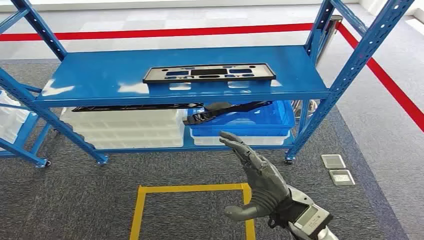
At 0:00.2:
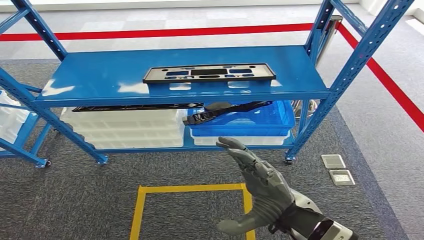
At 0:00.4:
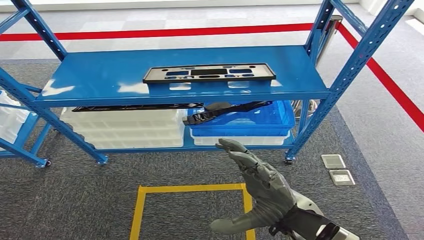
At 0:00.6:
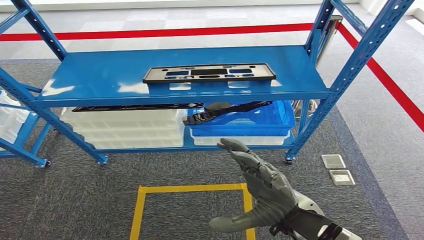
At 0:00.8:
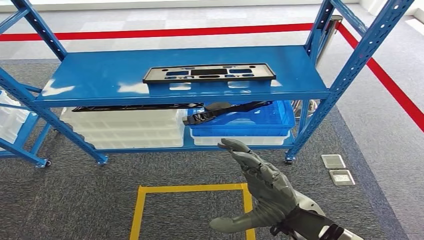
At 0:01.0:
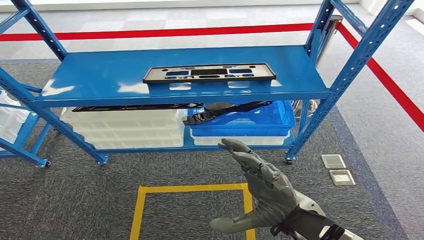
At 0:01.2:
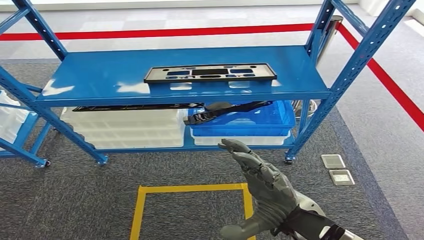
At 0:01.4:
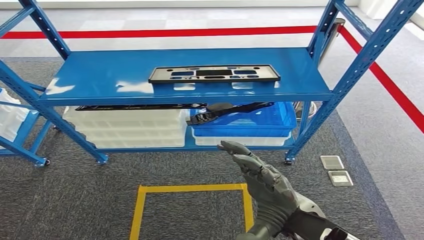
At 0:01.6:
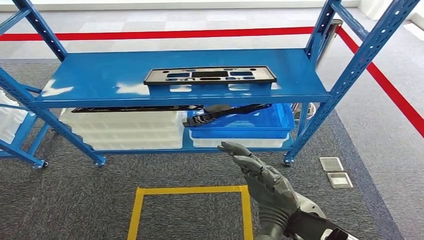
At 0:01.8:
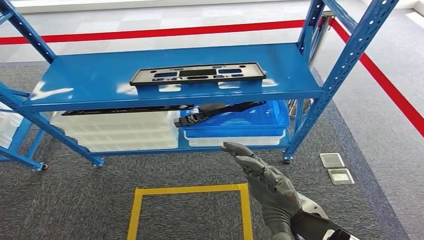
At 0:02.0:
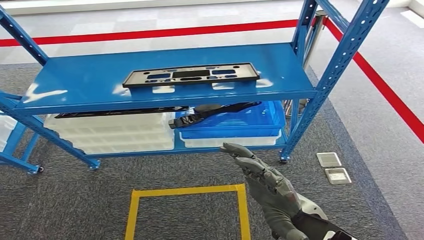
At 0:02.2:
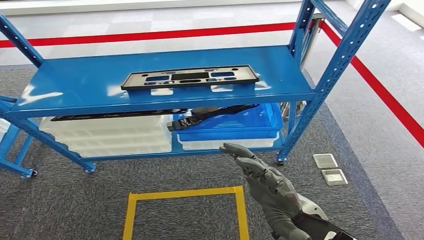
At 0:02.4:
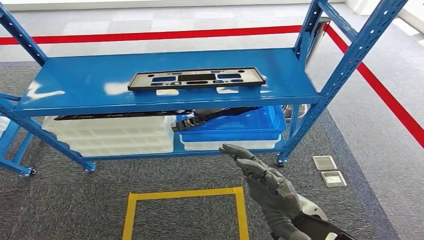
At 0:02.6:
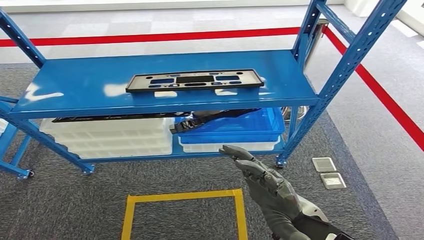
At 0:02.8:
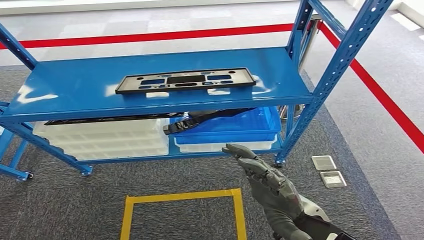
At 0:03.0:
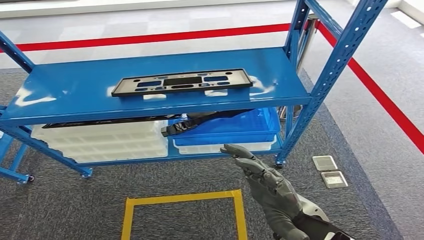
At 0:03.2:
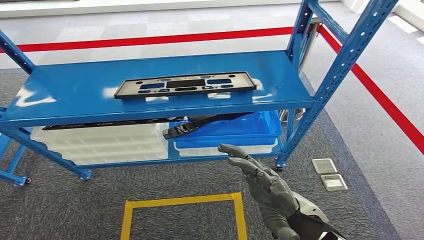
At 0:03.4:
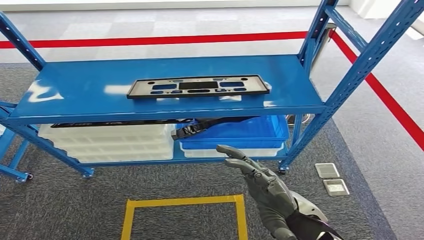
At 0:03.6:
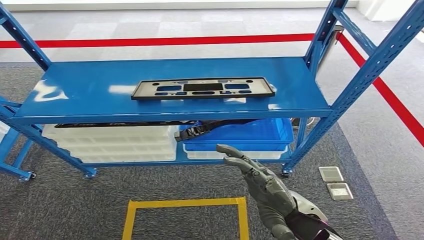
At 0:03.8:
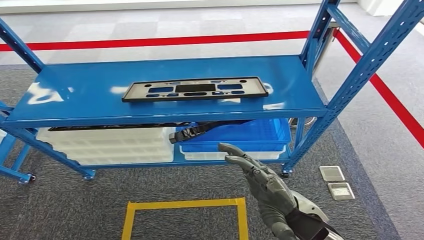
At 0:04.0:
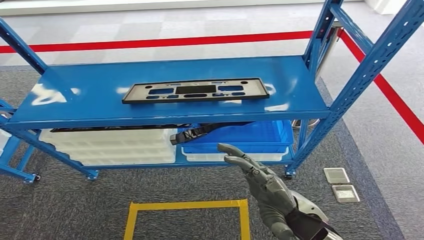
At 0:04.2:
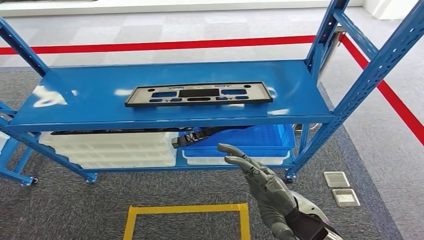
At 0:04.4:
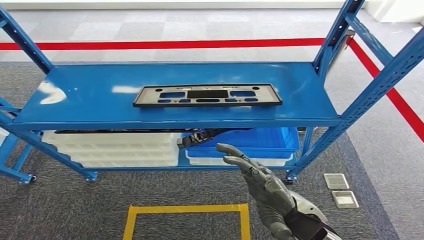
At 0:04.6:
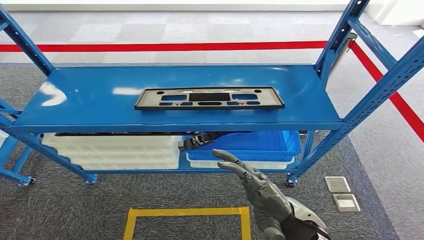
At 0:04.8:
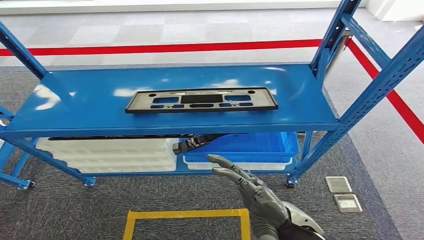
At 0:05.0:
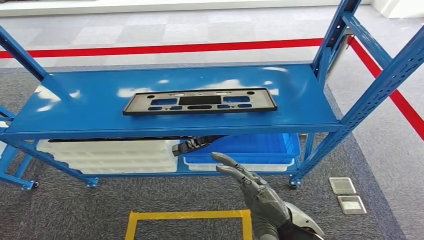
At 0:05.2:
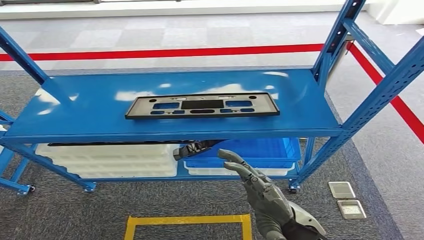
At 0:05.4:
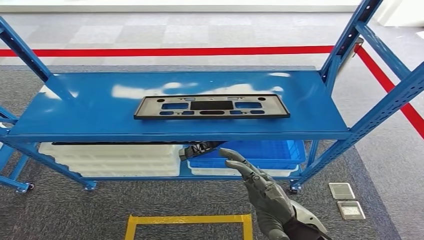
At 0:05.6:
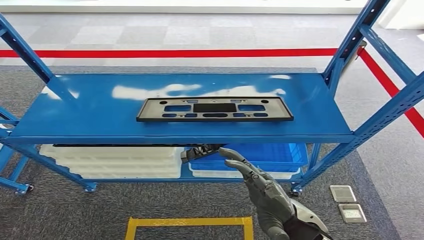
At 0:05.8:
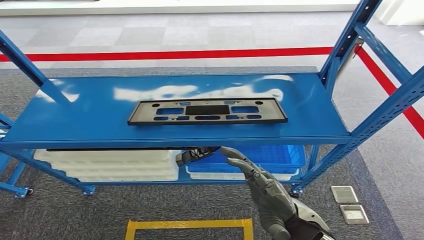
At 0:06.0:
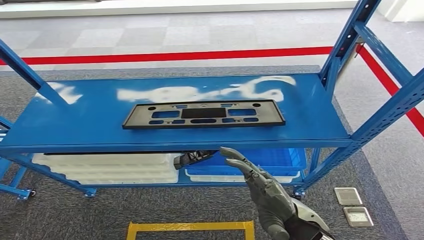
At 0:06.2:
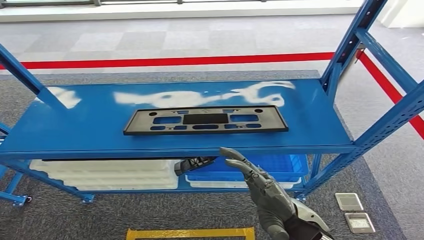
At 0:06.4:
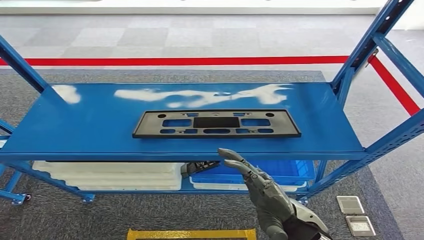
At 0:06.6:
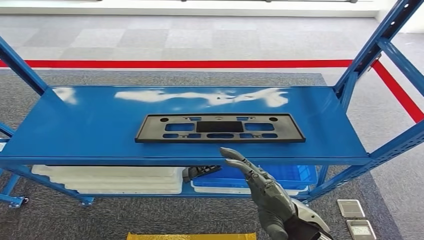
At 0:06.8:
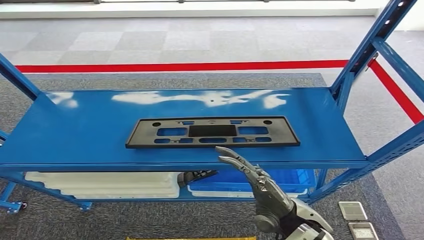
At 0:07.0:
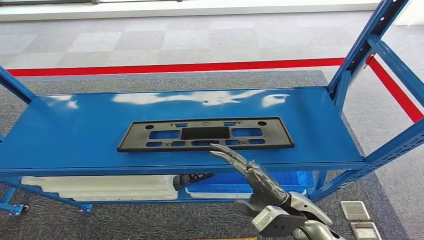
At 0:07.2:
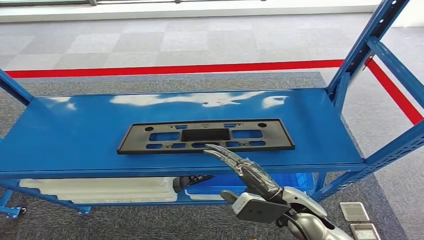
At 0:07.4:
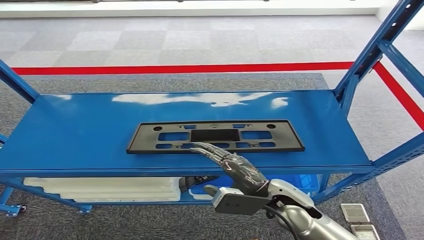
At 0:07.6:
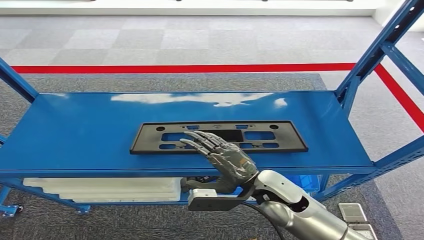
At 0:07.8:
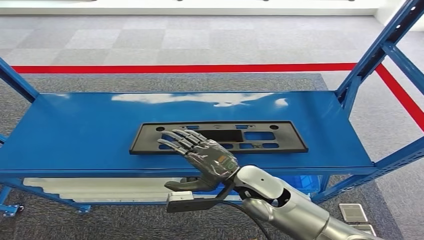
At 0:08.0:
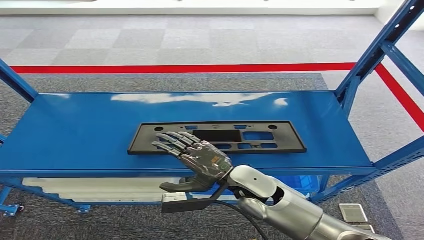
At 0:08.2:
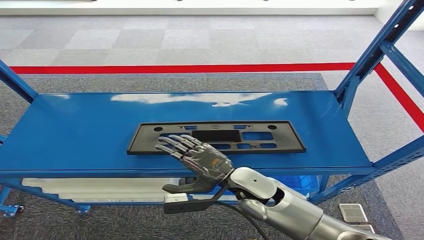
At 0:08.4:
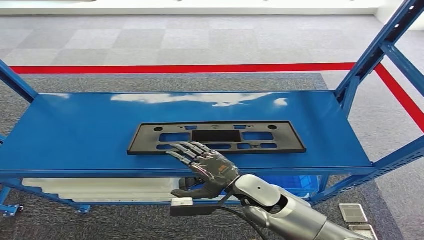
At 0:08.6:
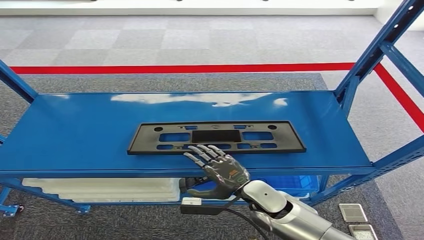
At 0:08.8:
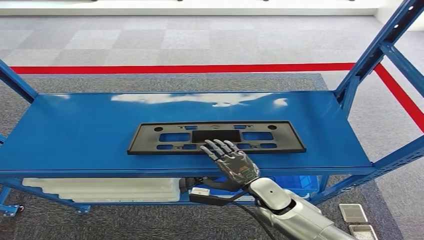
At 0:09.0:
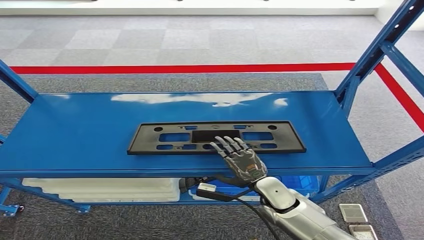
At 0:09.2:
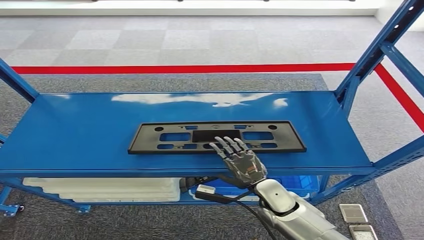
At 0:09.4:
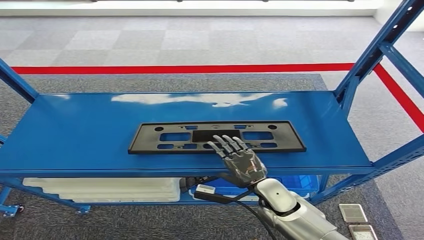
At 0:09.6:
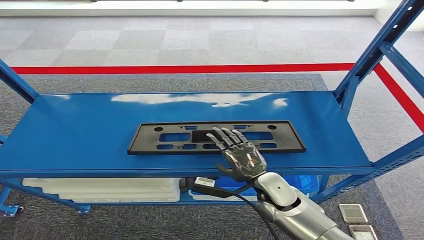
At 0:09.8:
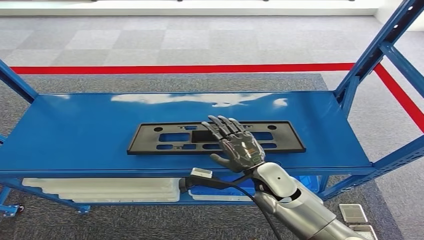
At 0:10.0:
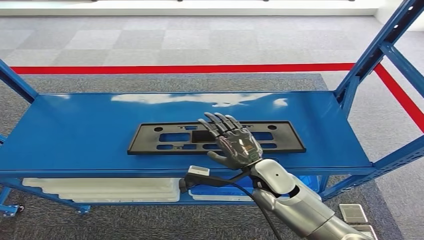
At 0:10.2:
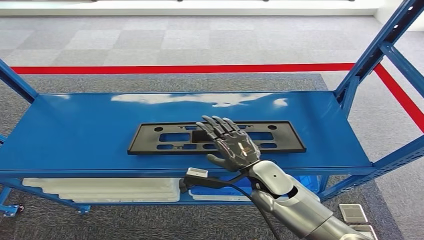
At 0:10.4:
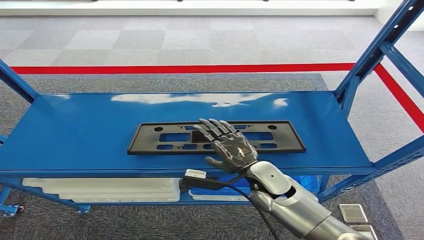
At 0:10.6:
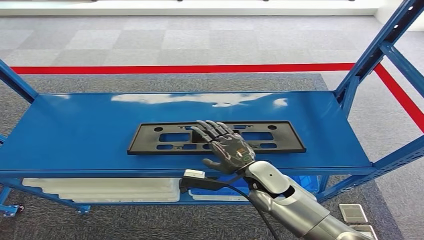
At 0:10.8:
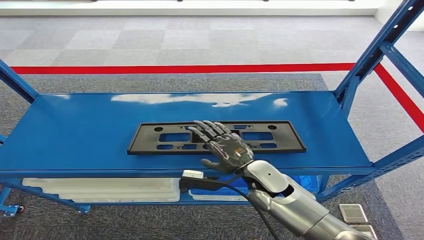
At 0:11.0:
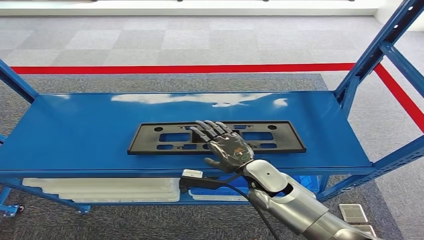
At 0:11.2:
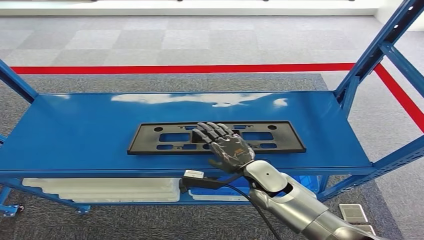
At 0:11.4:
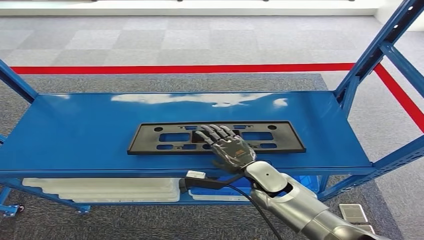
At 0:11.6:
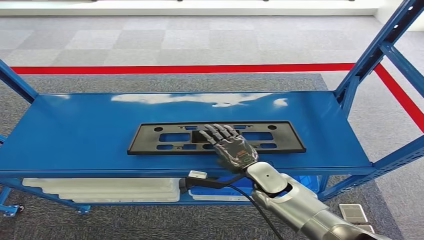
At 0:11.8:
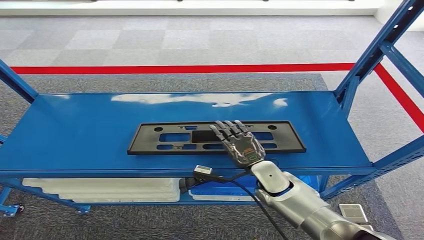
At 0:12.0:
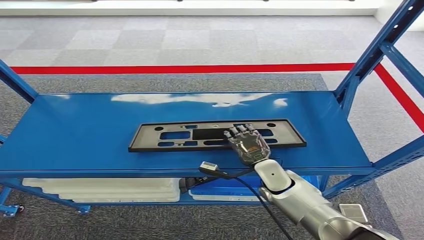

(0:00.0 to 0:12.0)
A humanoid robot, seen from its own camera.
0:07.6 - 0:09.0: The right hand shifts approximately 10 cm downward.
0:09.0 - 0:10.4: The right hand is displaced upward by roughly 5 cm.
0:10.4 - 0:12.0: The right hand ends up some 5 cm from where it was.

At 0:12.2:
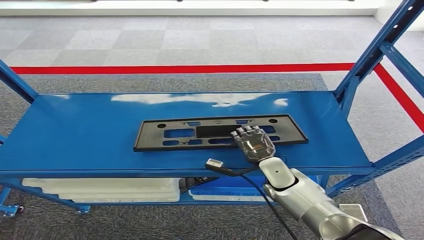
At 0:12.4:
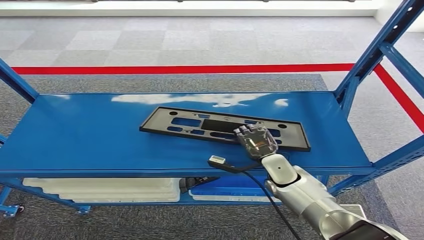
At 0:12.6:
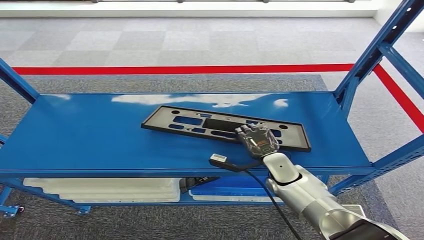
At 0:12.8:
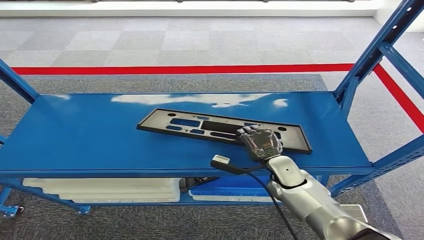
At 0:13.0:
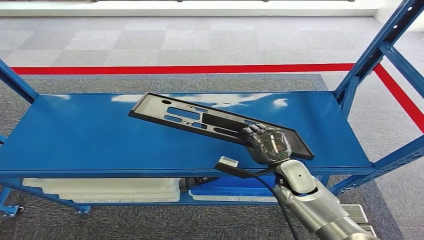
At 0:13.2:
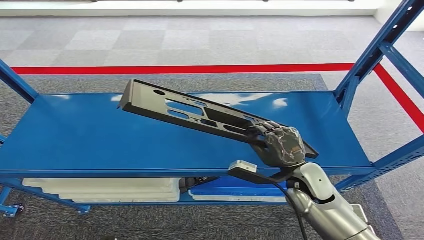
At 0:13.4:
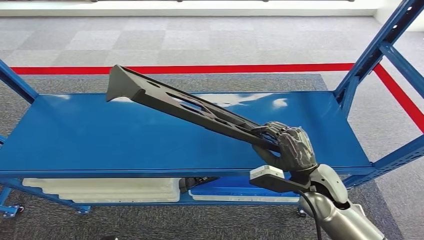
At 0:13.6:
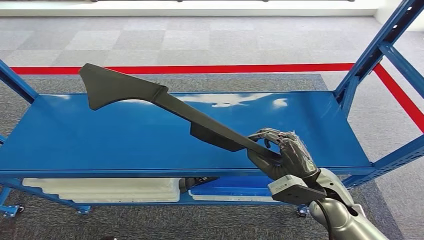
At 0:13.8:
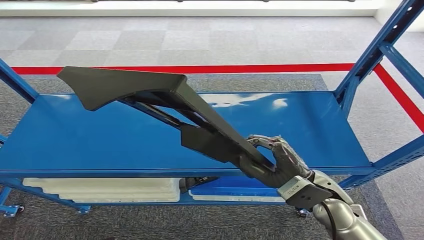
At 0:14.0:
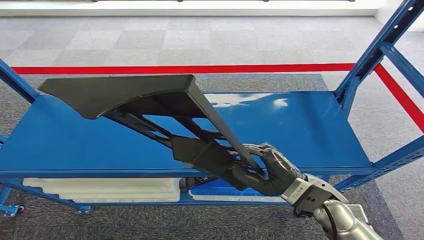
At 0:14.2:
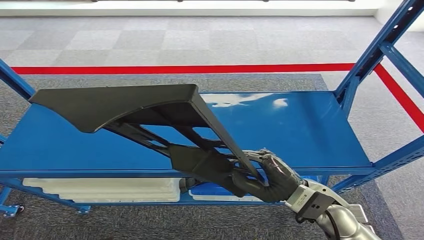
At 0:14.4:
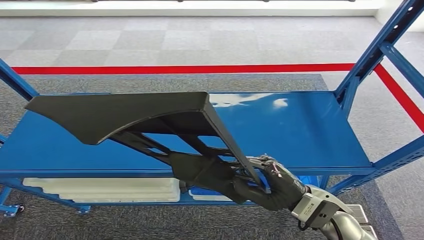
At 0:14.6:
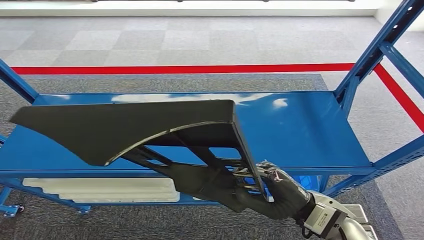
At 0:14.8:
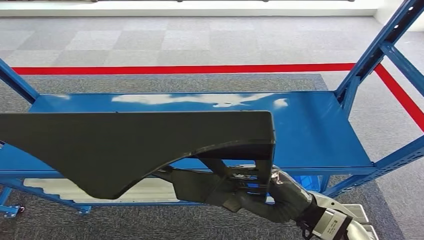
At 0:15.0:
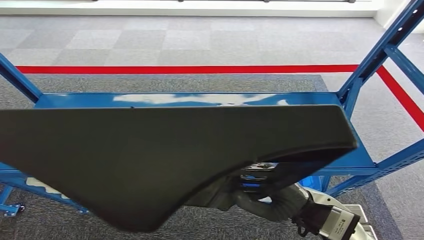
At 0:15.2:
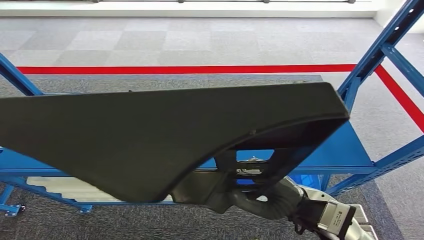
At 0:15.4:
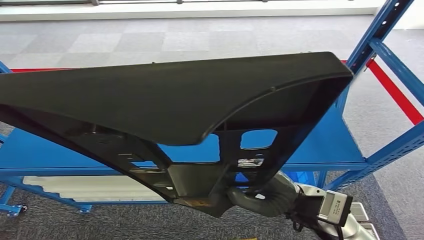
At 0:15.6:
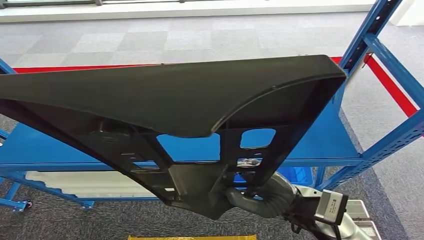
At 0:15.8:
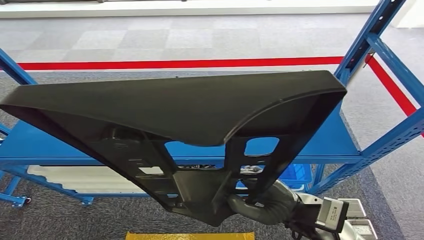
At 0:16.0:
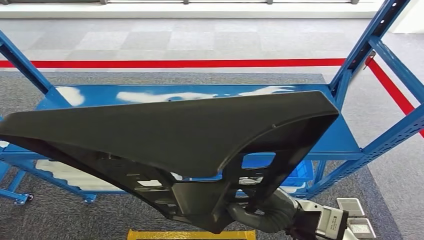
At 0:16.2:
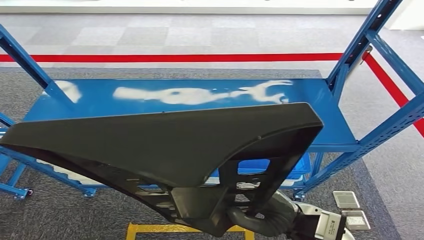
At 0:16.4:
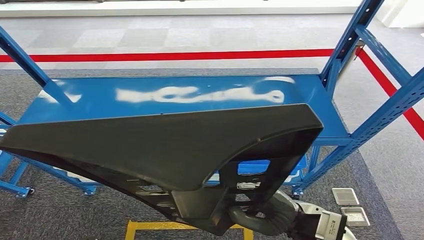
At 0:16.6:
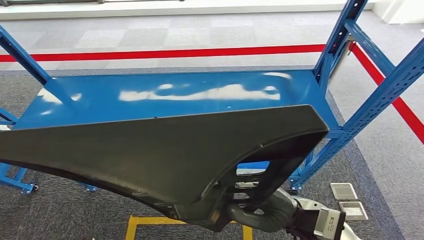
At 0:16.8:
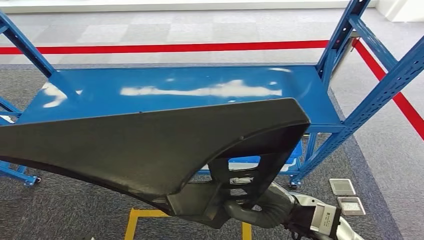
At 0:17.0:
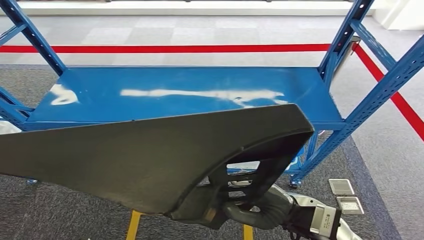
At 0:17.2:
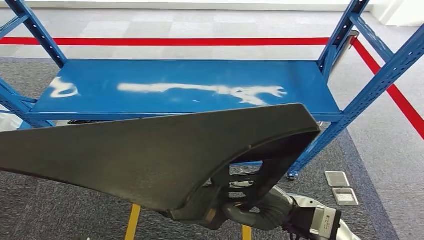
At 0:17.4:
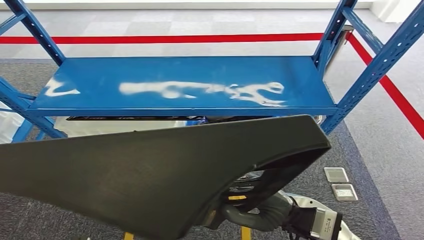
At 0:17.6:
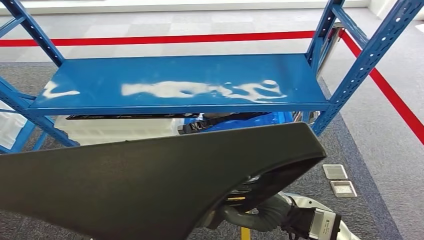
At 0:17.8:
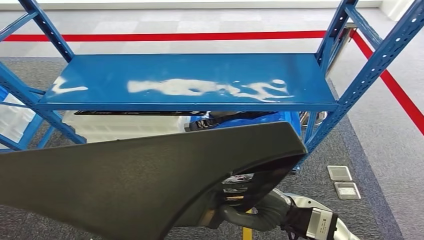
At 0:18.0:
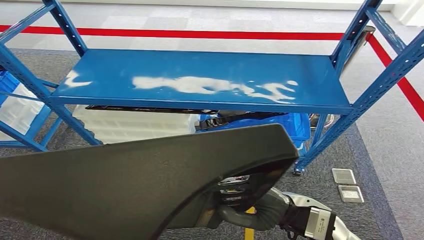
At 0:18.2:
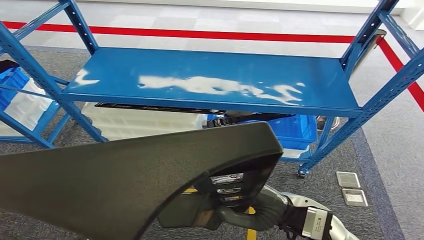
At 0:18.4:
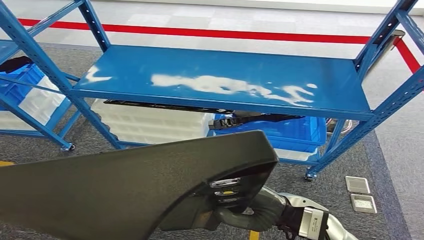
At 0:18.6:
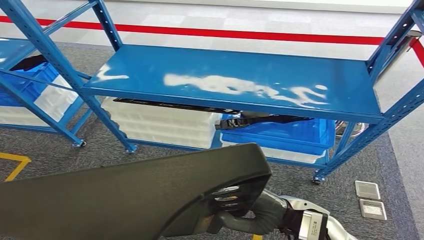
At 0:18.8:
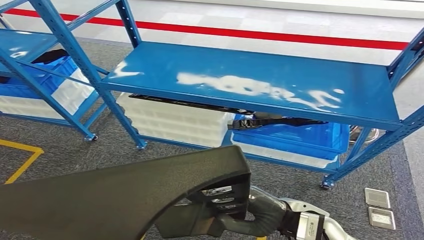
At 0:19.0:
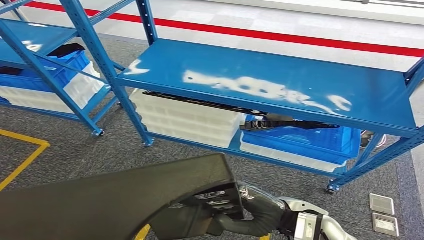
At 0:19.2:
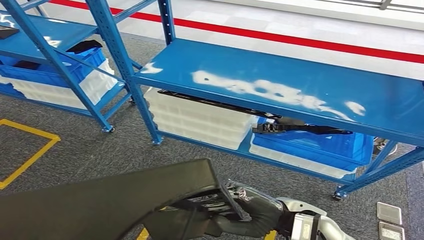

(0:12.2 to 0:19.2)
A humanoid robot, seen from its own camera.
0:12.2 - 0:13.6: The right hand heads upward and backward, covering some 15 cm.
